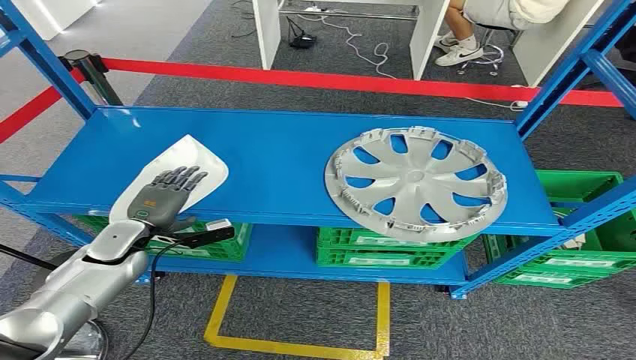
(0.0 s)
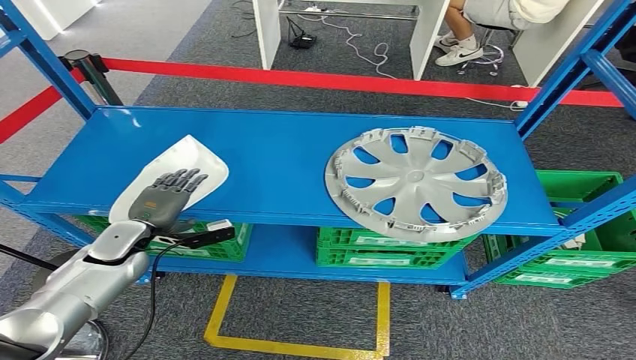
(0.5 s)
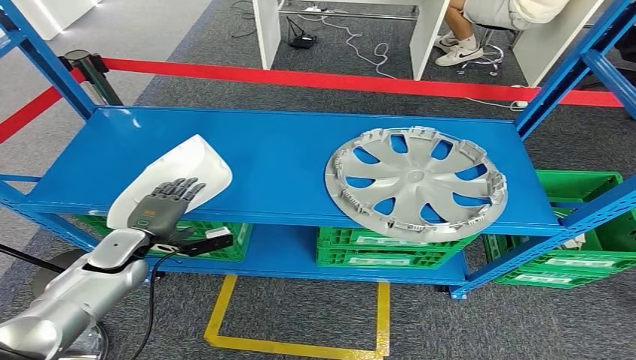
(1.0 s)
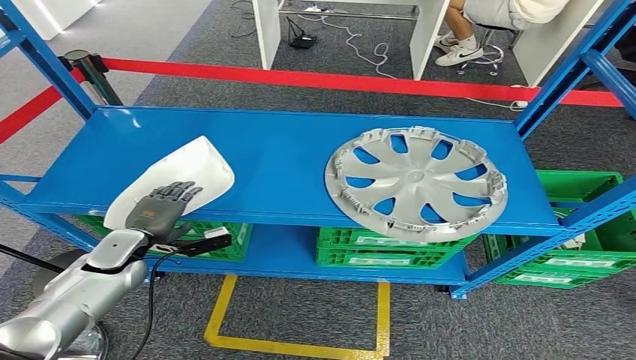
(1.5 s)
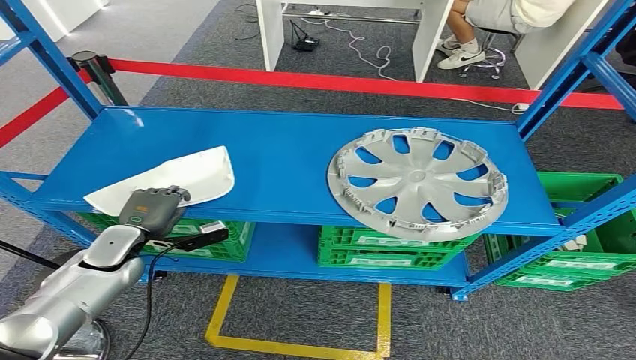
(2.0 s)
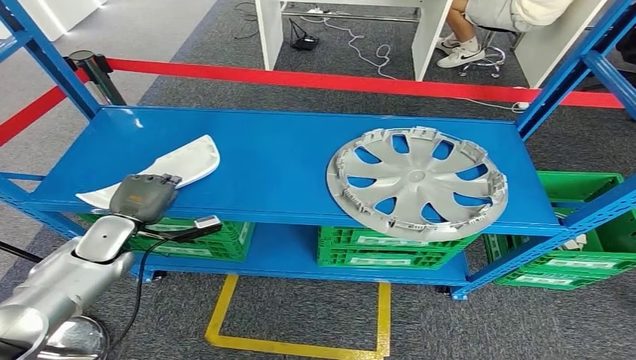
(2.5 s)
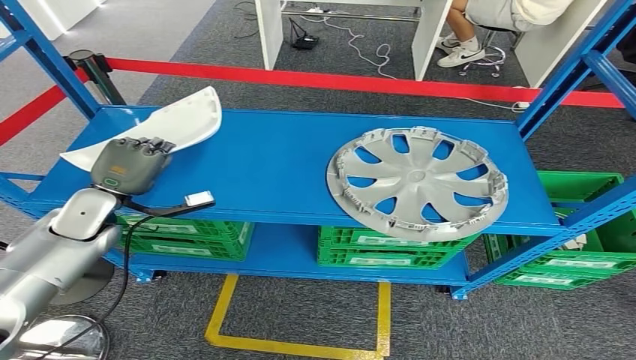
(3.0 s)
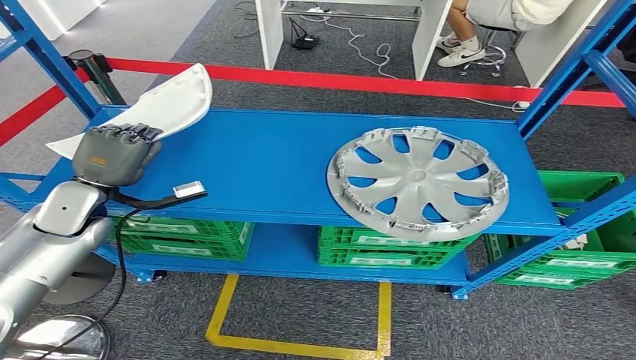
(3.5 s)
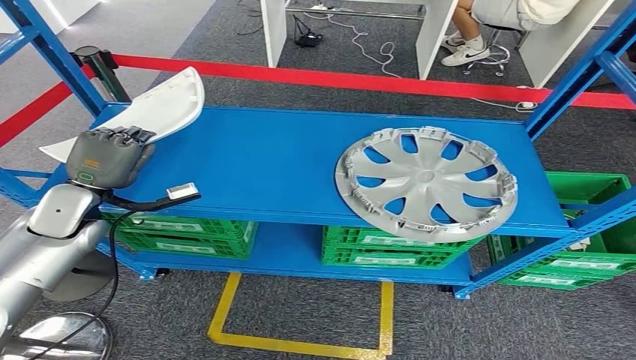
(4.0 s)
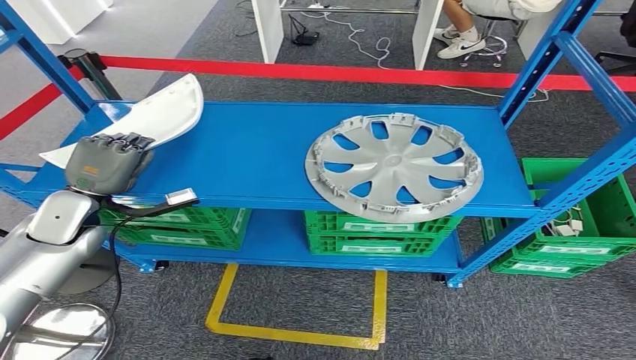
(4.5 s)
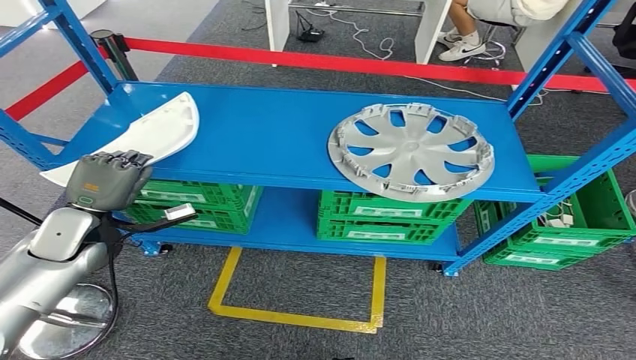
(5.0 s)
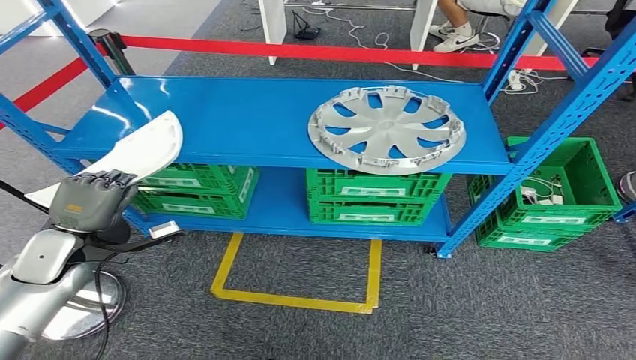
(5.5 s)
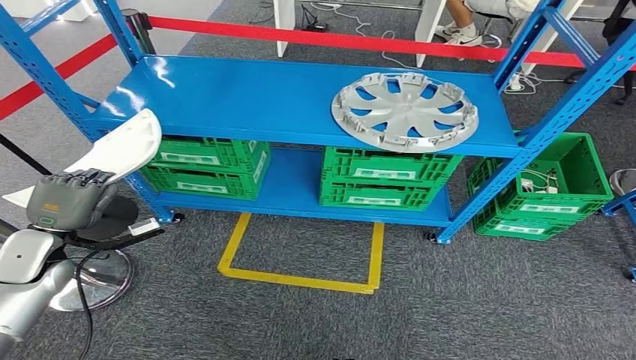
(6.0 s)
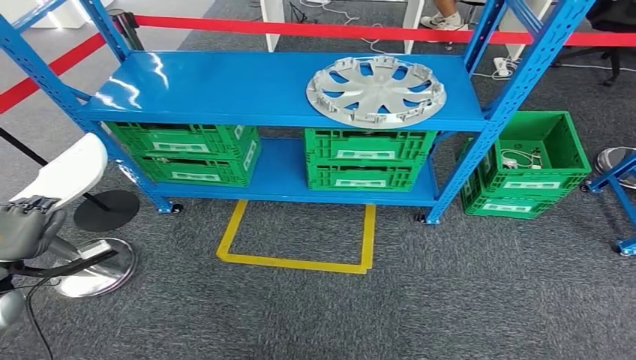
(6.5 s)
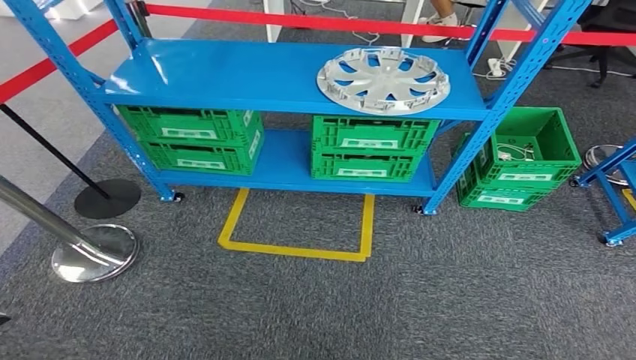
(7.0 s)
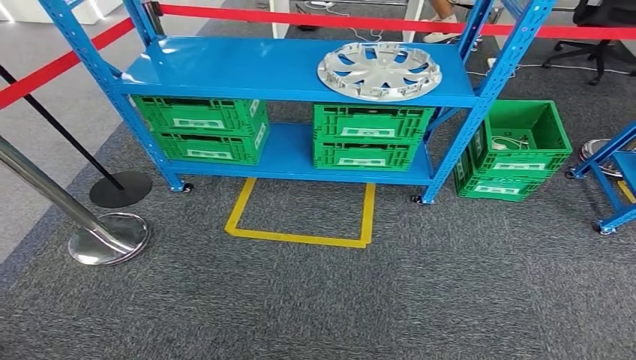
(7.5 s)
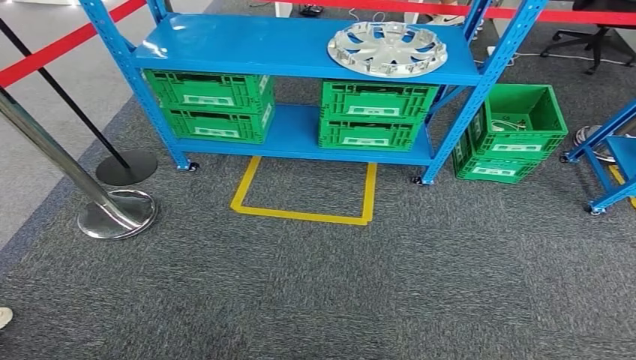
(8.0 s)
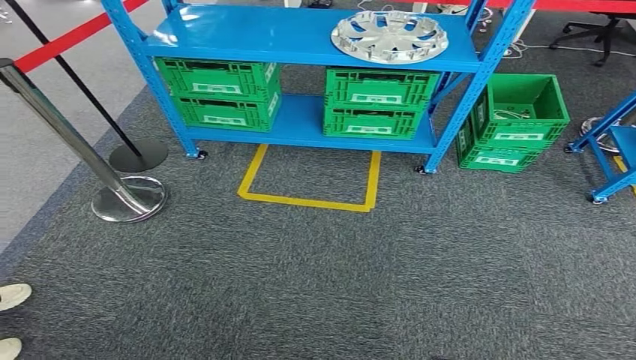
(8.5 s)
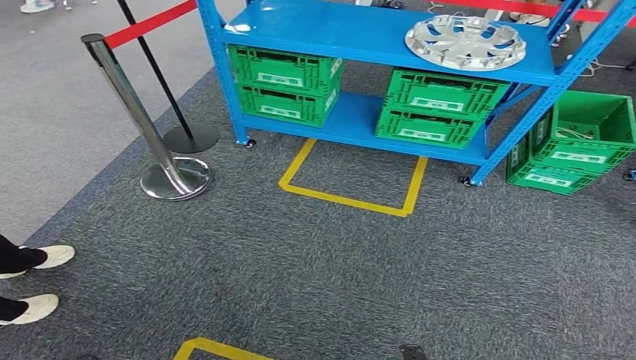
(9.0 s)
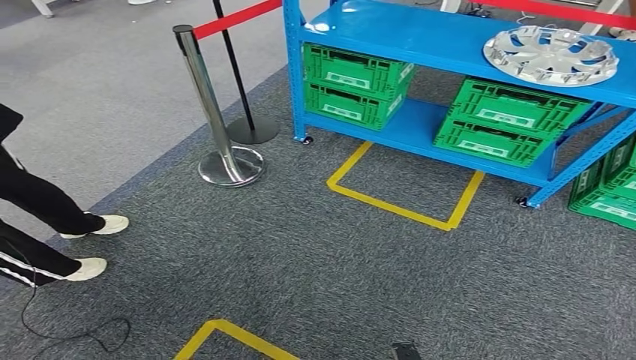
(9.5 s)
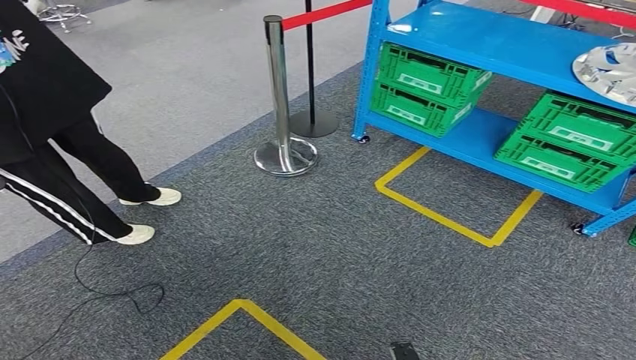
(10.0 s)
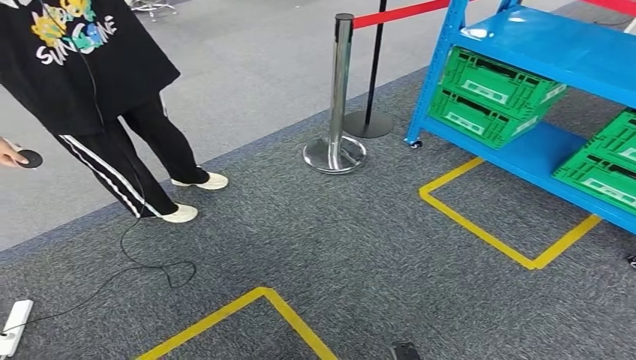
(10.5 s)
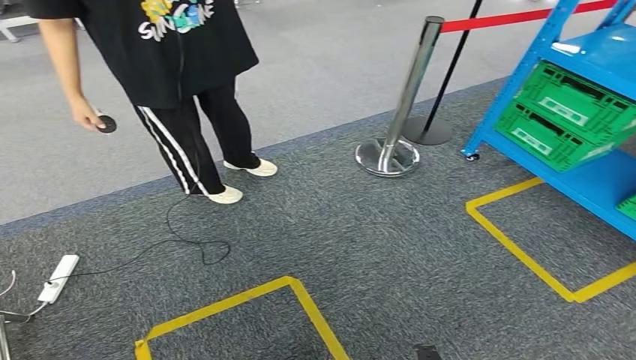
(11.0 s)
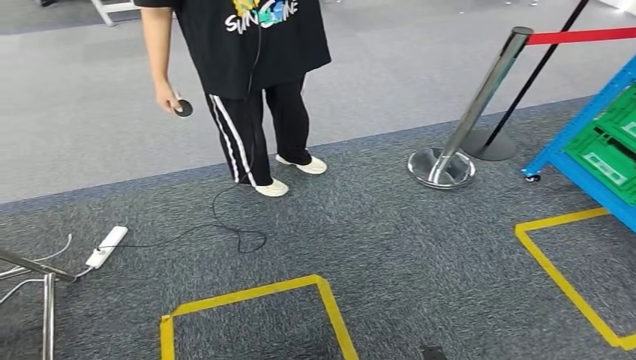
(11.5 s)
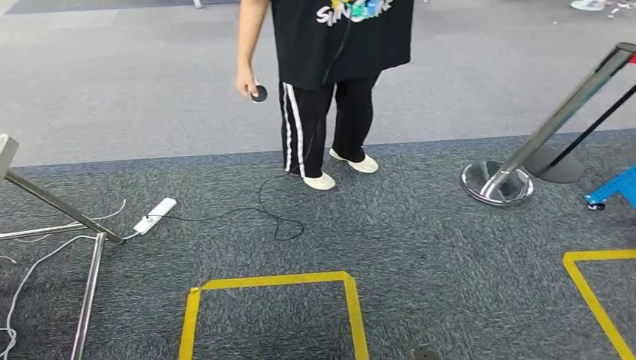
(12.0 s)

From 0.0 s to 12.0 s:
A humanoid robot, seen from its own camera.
Step, from 0.0 s to 5.0 s: Pick up the small component from the shelf.

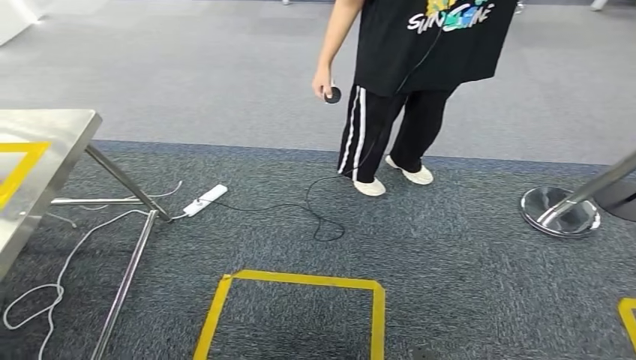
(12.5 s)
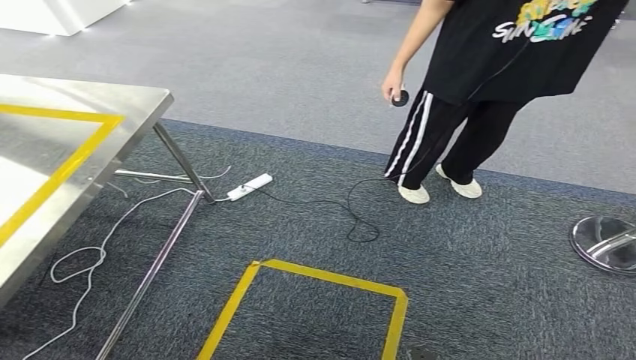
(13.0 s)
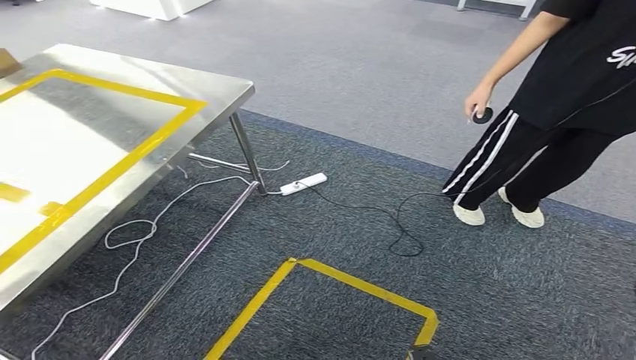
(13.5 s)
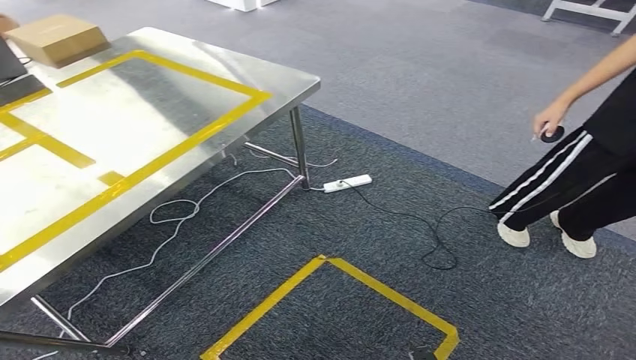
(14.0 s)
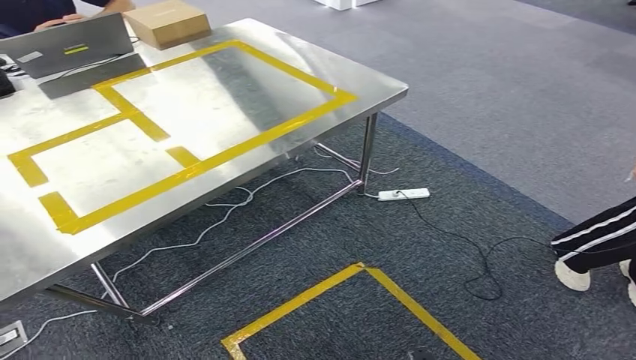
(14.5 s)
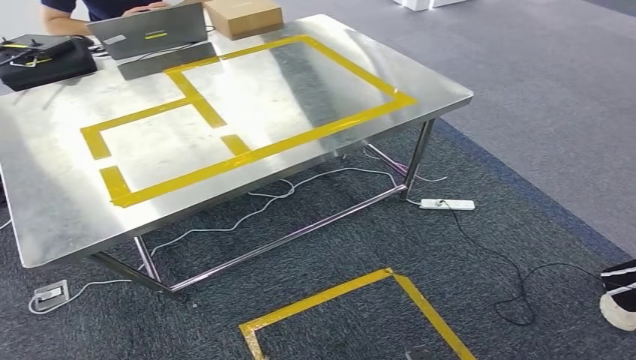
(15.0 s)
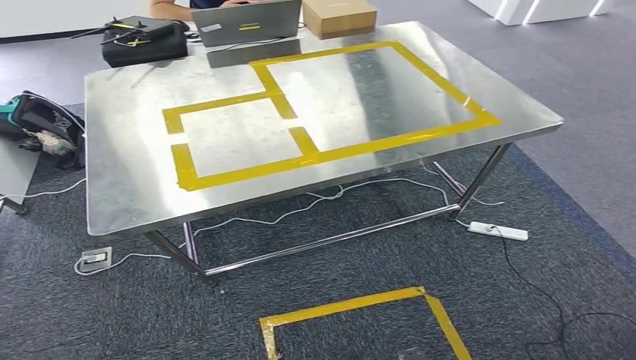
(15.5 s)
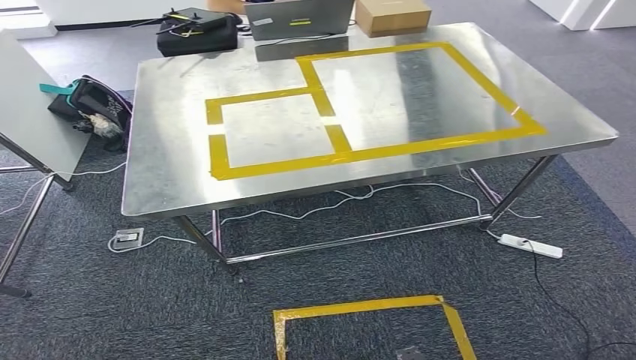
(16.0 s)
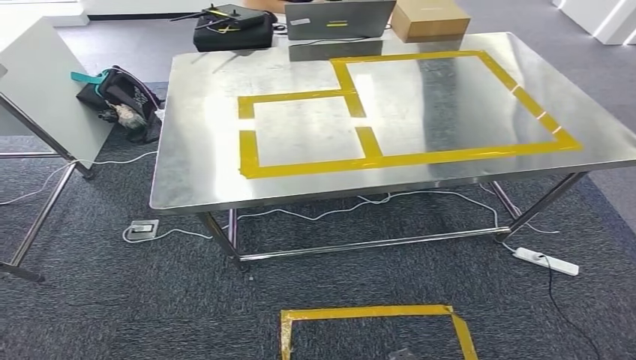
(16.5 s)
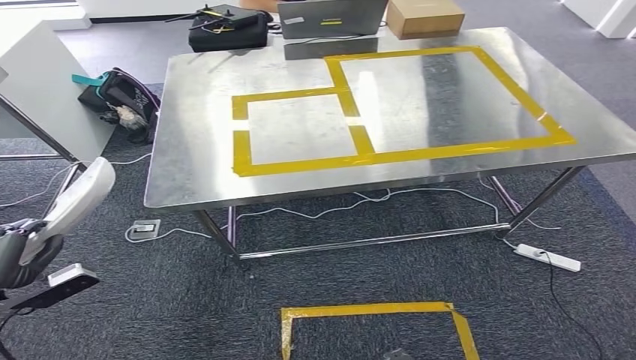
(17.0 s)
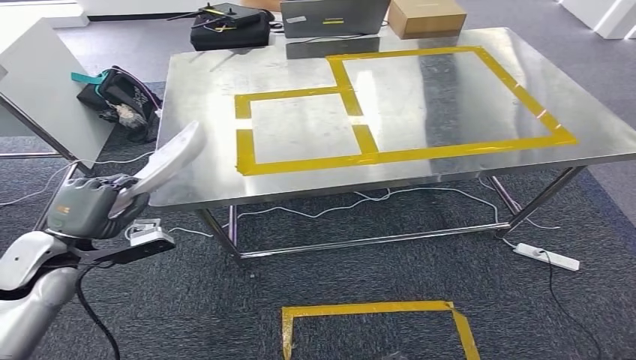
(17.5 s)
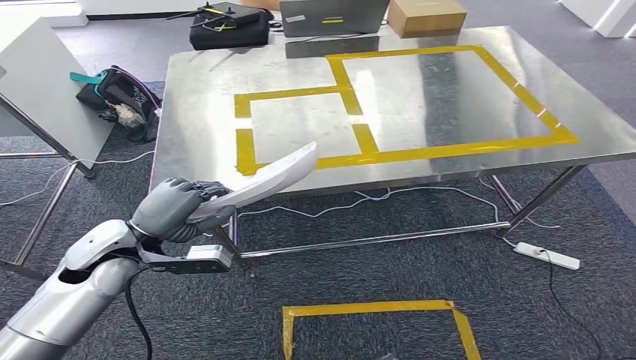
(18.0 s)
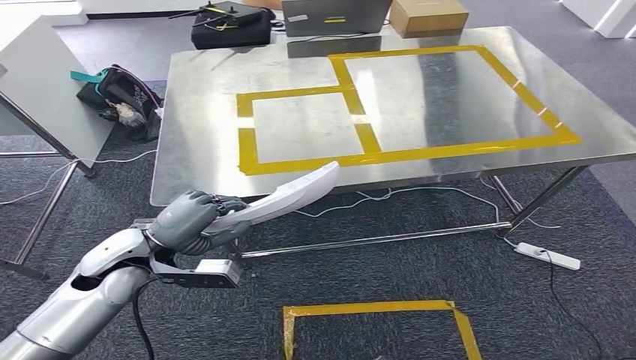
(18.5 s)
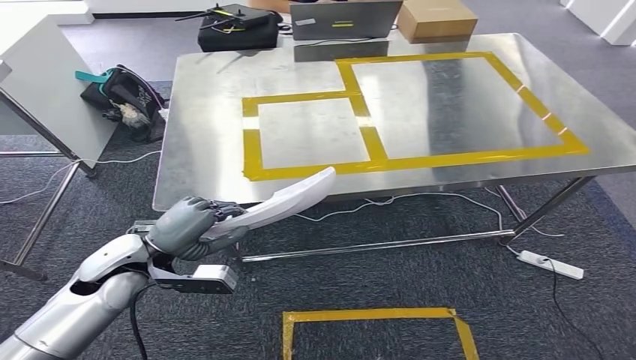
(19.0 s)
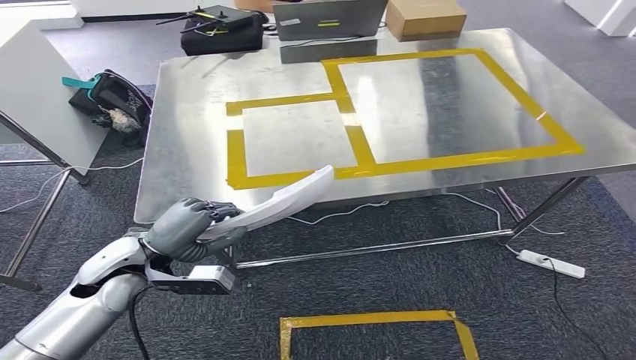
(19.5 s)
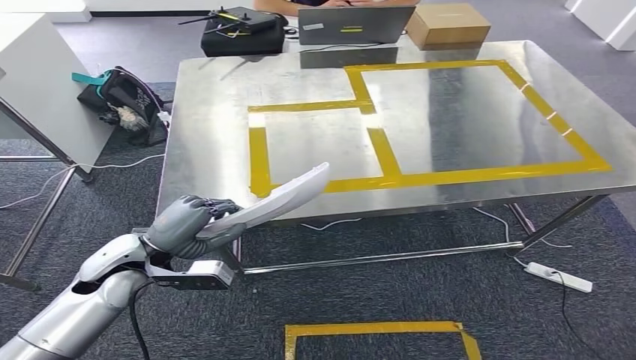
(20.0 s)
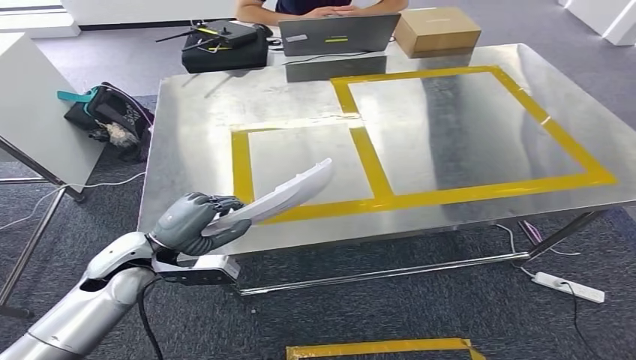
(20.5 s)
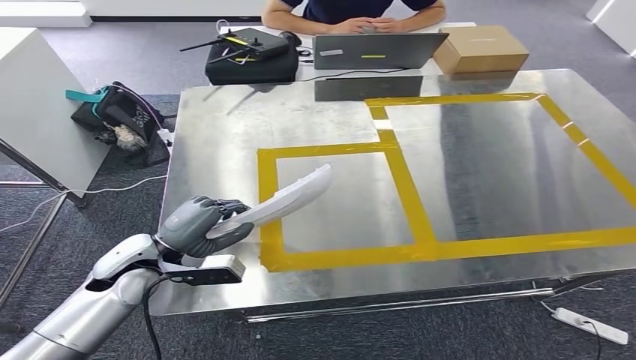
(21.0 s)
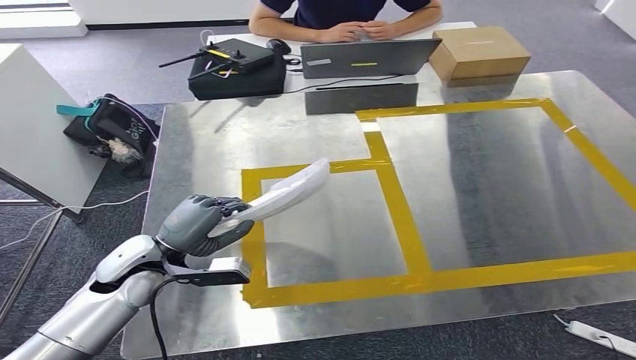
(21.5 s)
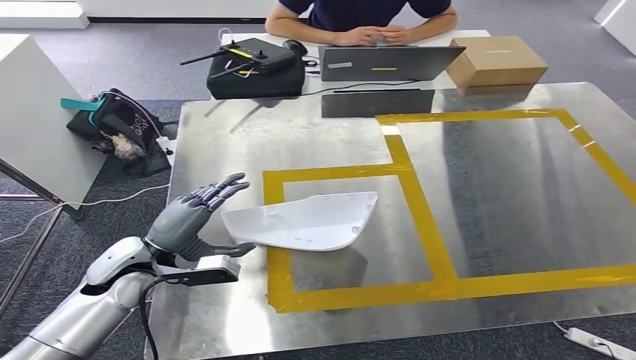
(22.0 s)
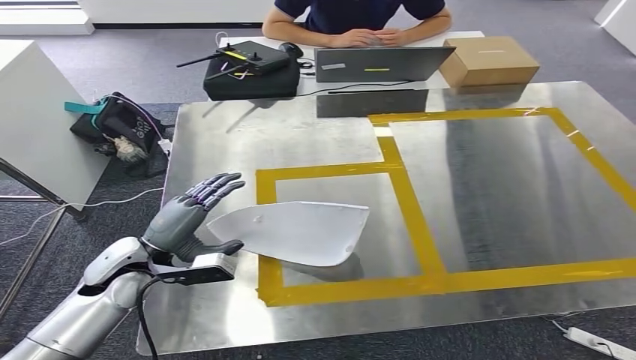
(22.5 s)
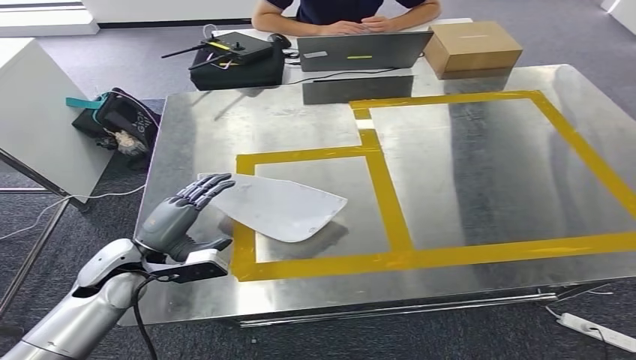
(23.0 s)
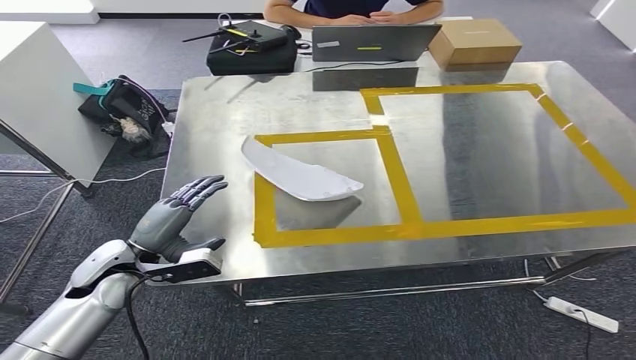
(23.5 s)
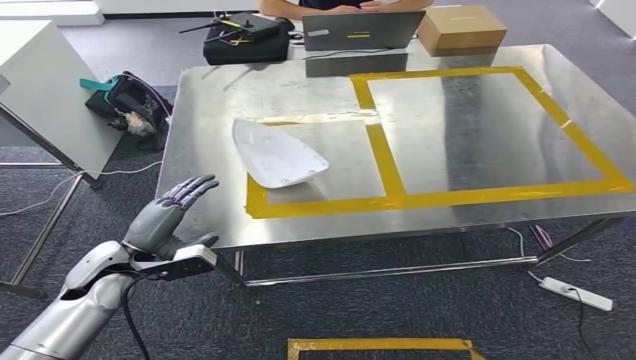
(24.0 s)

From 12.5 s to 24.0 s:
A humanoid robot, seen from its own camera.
Step, from 12.5 s to 15.5 s: Move the small component to the workbench.
Step, from 16.0 s to 23.5 s: Insert the small component into the corresponding slot on the workbench.
